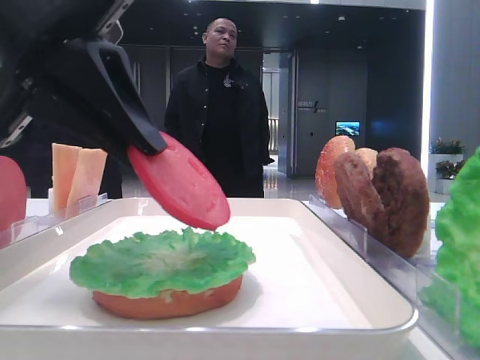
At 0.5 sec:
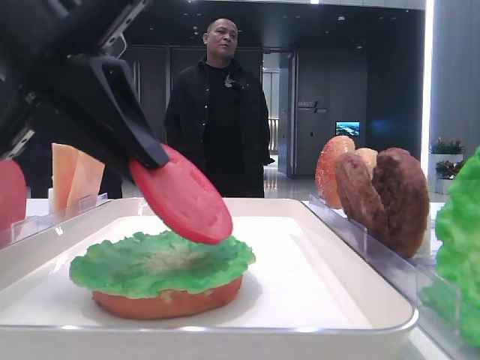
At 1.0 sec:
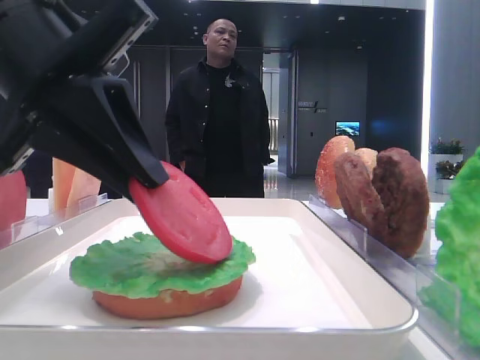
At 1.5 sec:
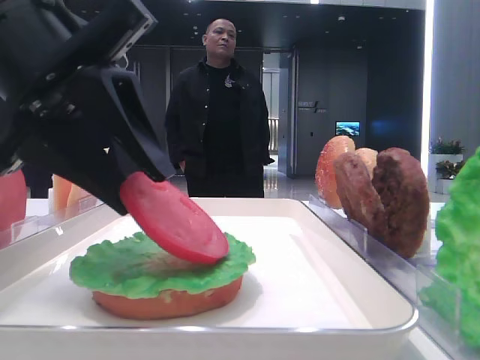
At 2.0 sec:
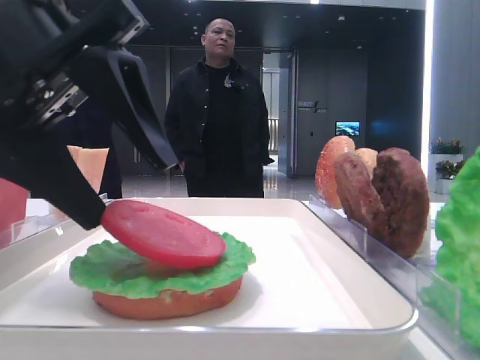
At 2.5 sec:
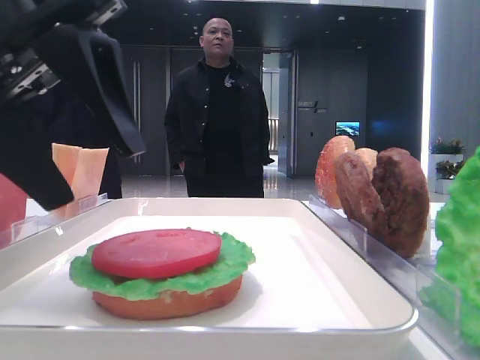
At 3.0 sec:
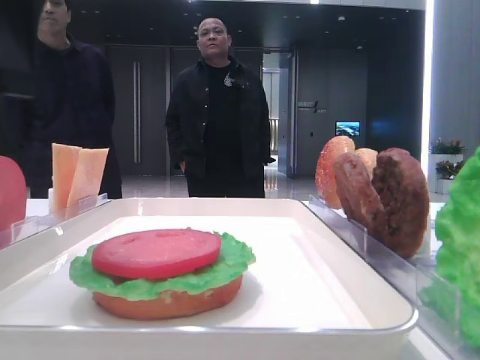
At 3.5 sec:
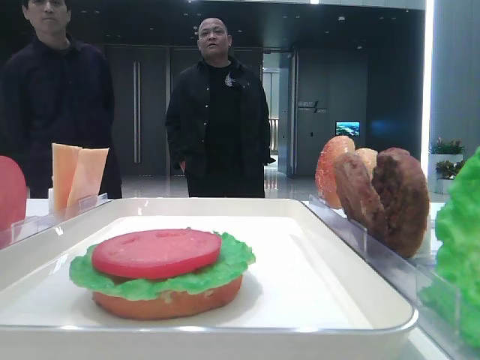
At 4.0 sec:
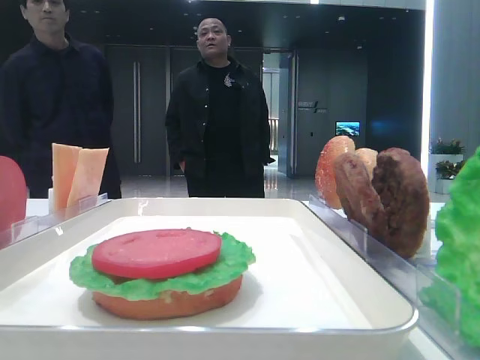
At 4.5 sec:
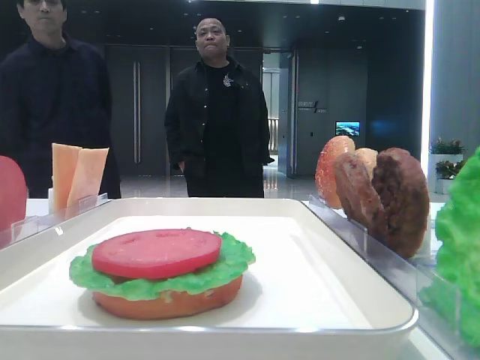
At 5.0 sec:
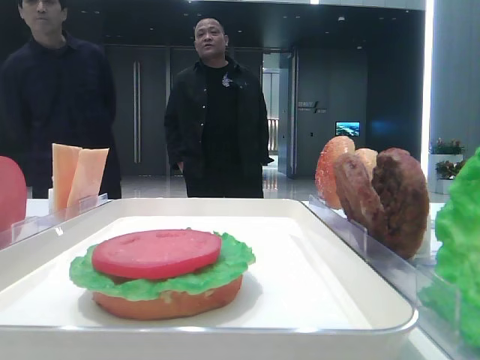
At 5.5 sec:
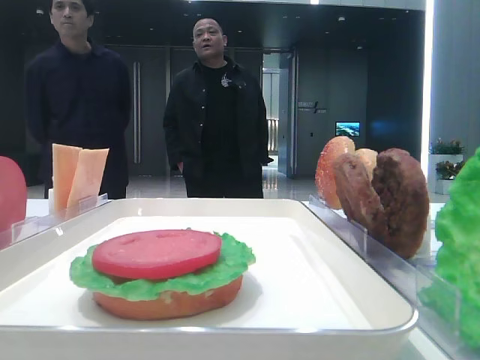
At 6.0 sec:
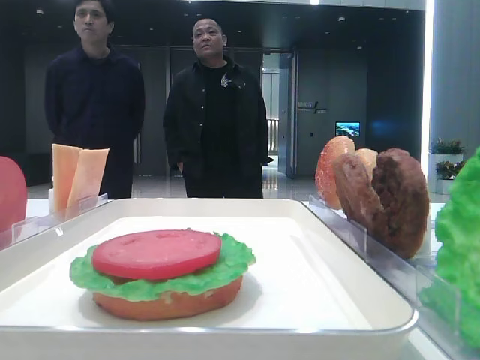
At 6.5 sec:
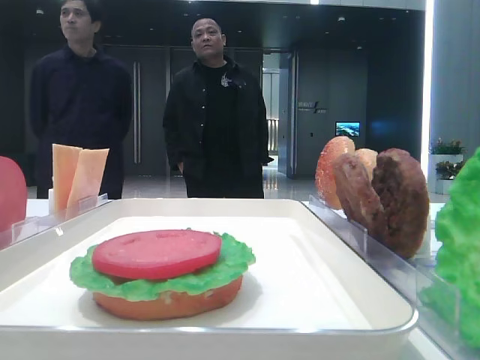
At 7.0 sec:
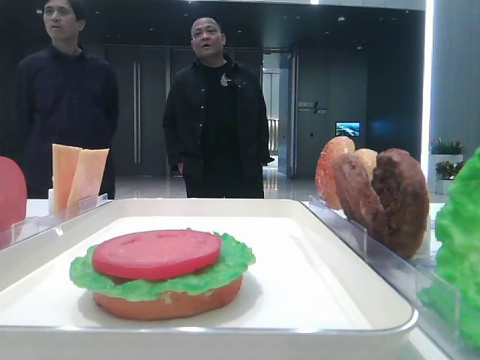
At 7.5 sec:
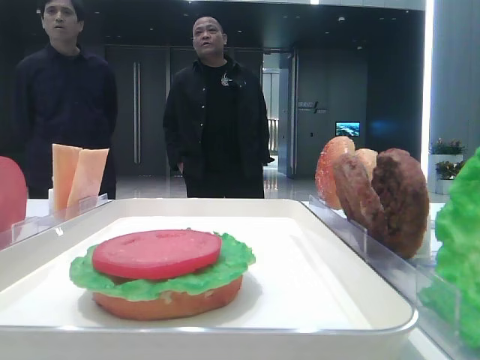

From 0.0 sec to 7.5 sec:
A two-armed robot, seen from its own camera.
Step, from 0.0 sec to 2.0 sec: Place the tomato slice on the lettuce leaf with the left hand.
From 0.0 sec to 2.0 sec: The left gripper opens its fingers.
From 2.0 sec to 4.0 sec: The left gripper heads upward and to the left, covering about 15 cm.
From 4.0 sec to 5.5 sec: The left gripper goes approximately 20 cm backward.
From 5.5 sec to 7.5 sec: The left gripper shifts about 5 cm downward.

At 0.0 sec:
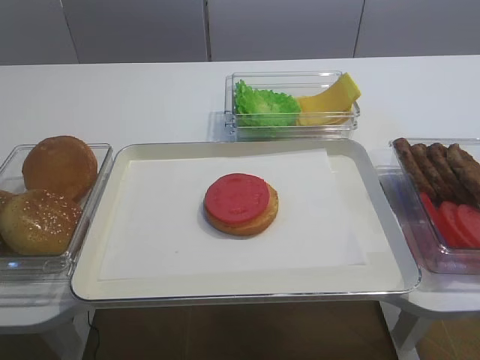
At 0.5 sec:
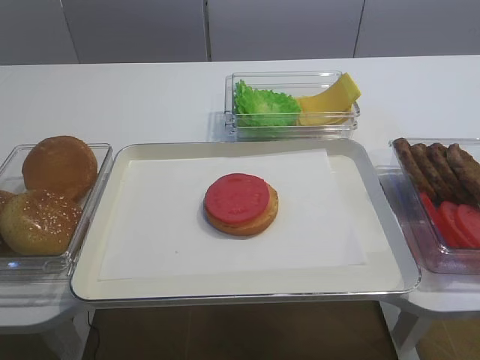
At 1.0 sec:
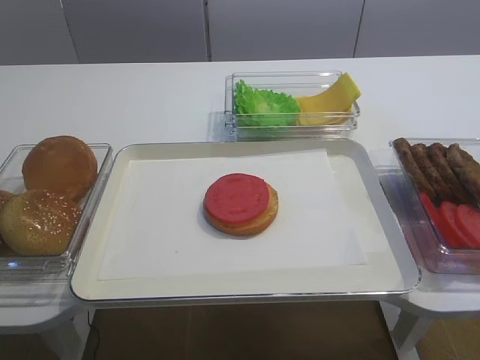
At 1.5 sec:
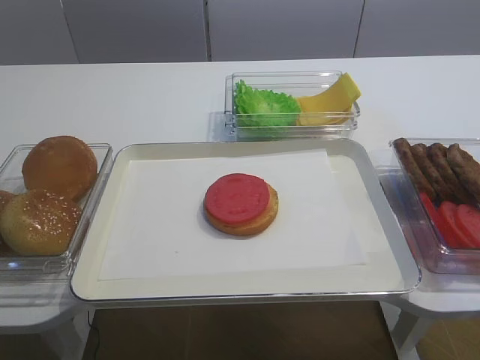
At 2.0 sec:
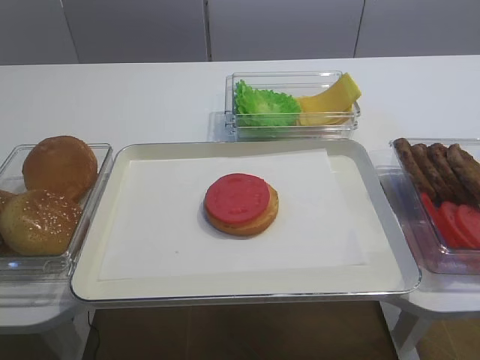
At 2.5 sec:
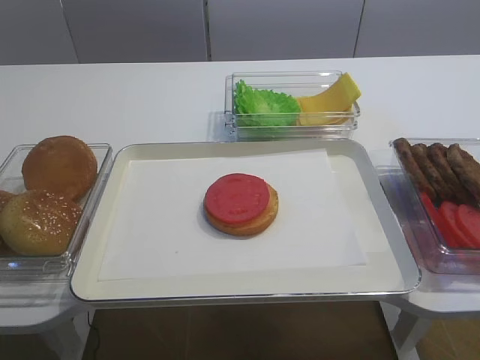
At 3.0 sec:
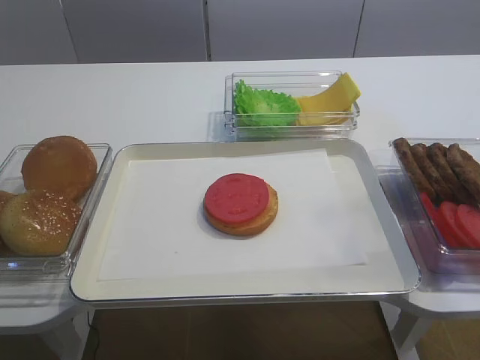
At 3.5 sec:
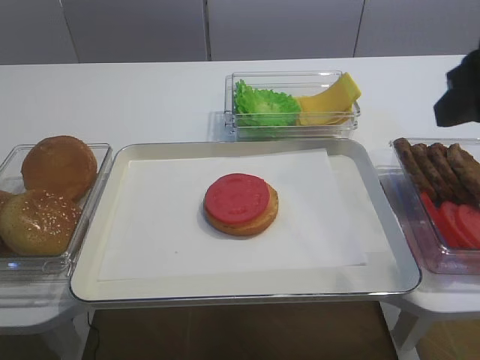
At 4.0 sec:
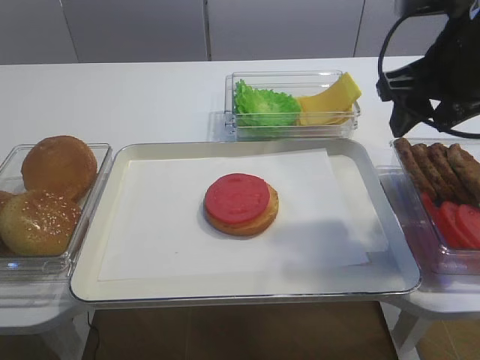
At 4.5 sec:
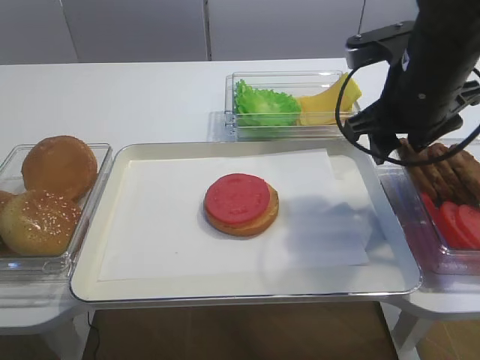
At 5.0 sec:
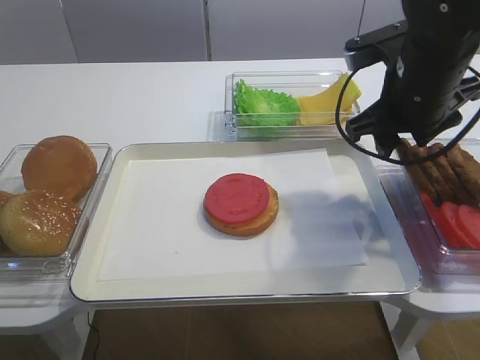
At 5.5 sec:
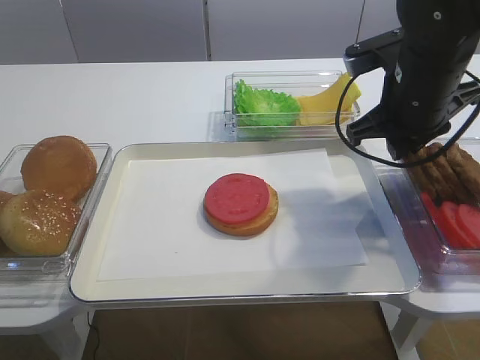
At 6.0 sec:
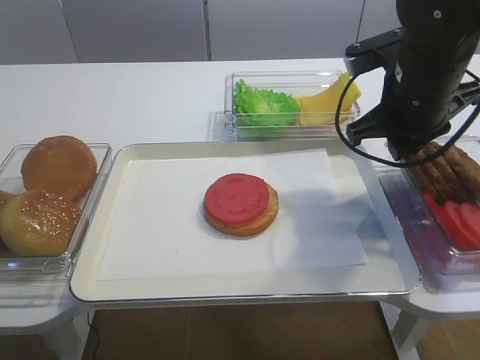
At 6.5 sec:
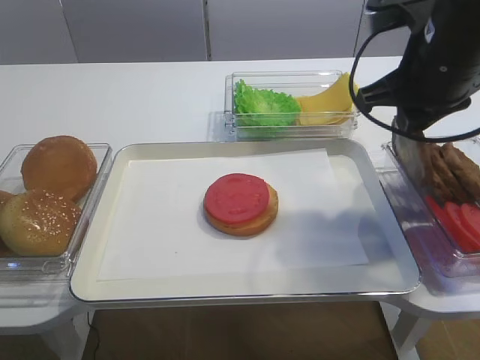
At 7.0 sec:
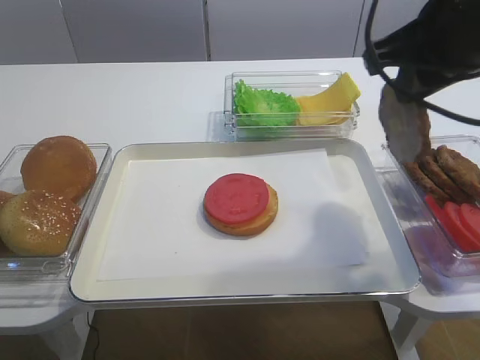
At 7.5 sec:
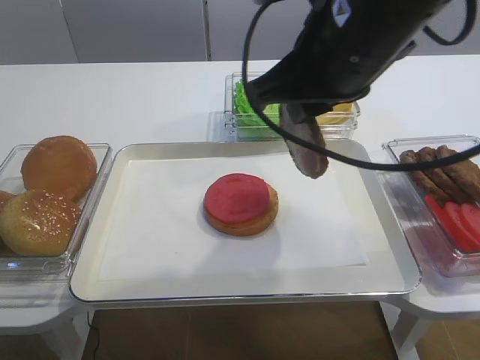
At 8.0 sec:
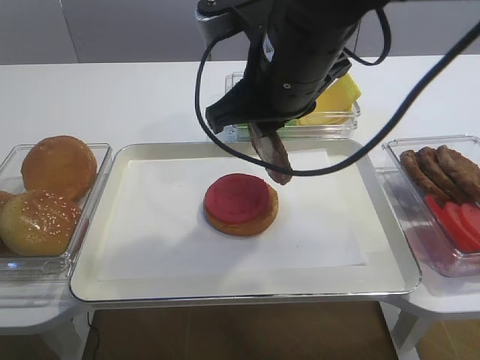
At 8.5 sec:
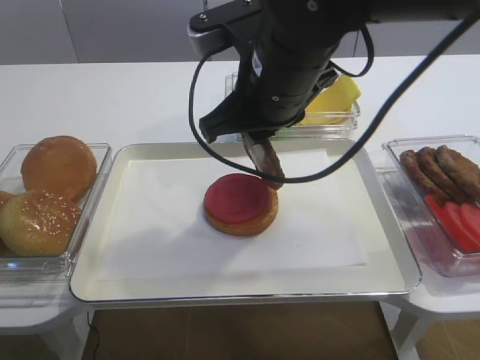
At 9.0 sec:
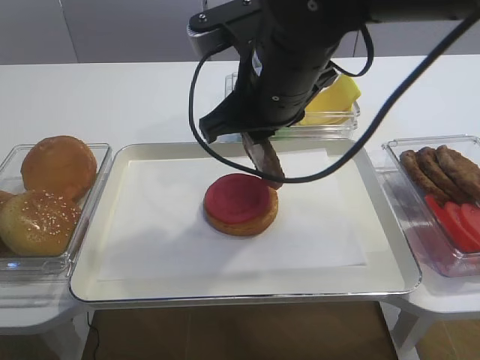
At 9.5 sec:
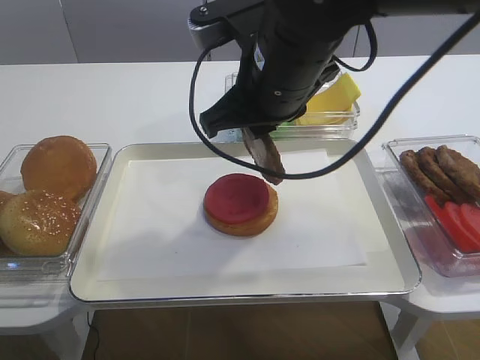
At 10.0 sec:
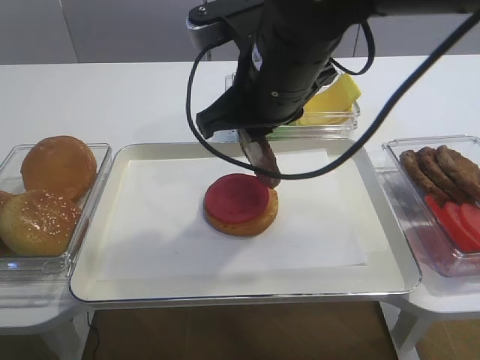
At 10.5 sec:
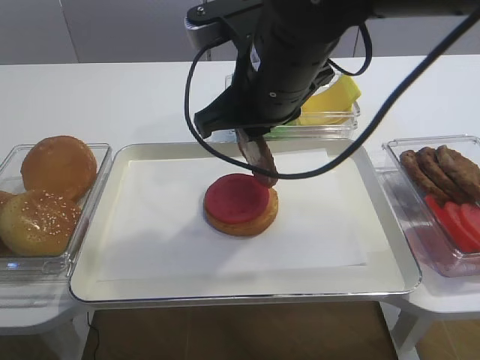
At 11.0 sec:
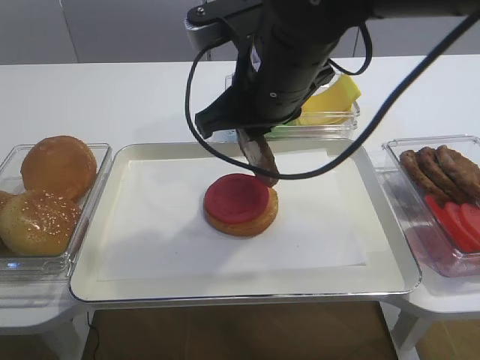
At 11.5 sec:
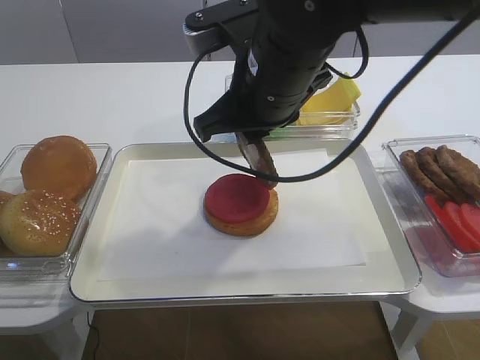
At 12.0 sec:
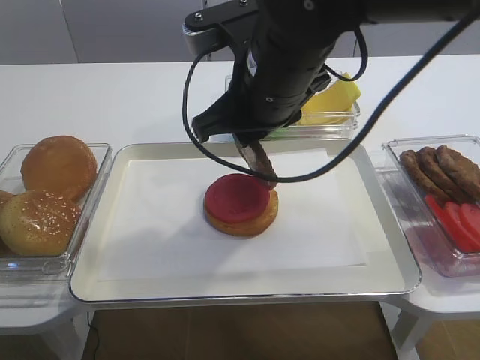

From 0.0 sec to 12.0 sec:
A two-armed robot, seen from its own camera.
Step, from 0.0 sec to 6.5 sec: Pick up the cutlet with the right gripper.
From 2.0 sec to 4.0 sec: The right gripper moves forward, roughly 30 cm.
From 4.0 sec to 6.0 sec: The right gripper travels downward by about 5 cm, and closes its fingers.
From 6.0 sec to 8.0 sec: The right gripper shifts some 15 cm to the left, upward and backward.
From 8.0 sec to 10.0 sec: The grippers move only a little.
From 10.0 sec to 12.0 sec: Both grippers stay about where they are.

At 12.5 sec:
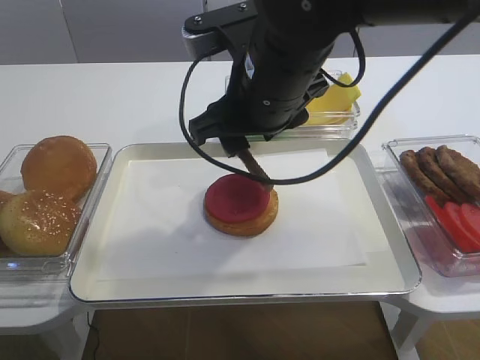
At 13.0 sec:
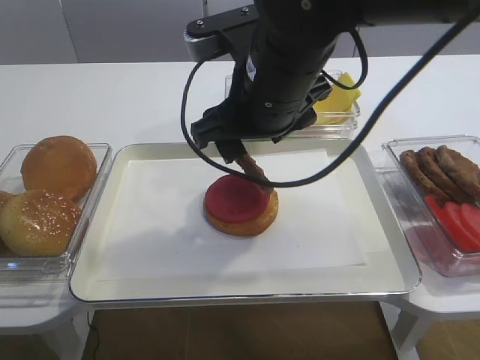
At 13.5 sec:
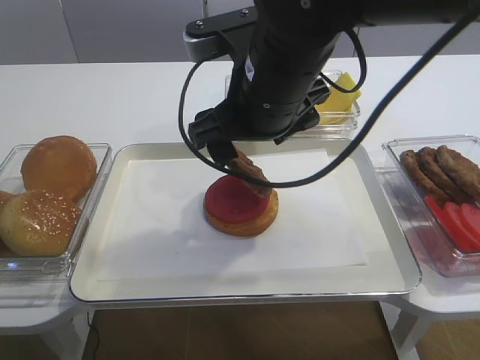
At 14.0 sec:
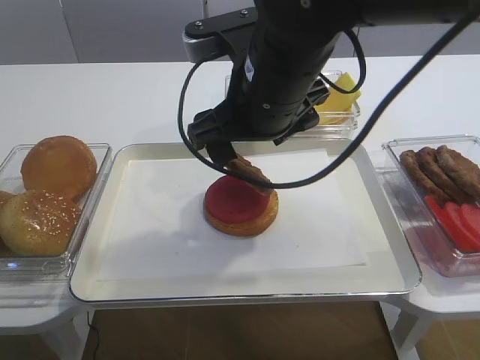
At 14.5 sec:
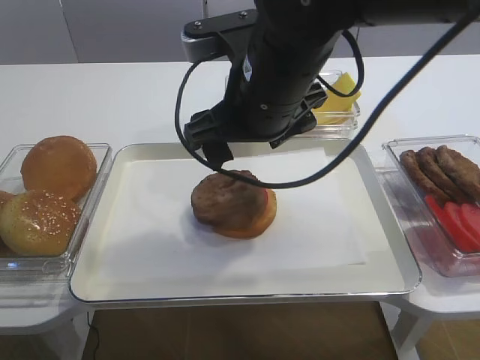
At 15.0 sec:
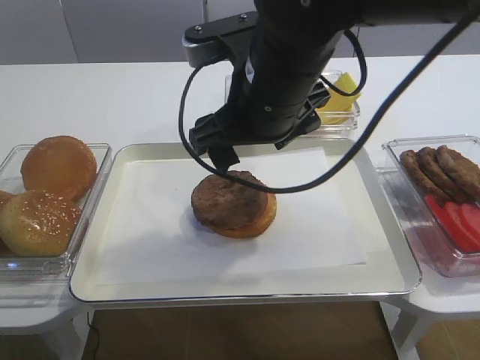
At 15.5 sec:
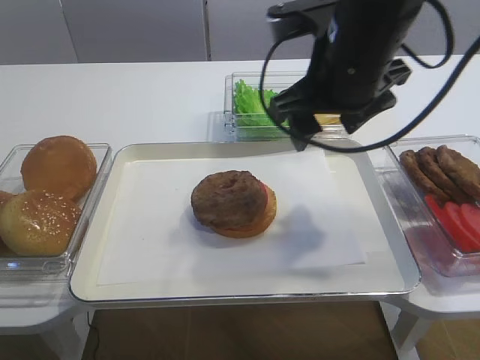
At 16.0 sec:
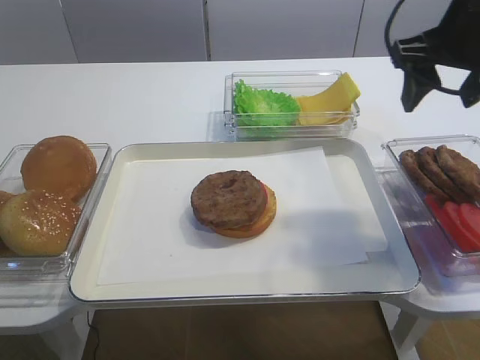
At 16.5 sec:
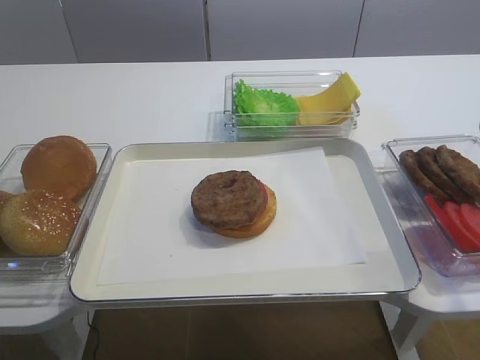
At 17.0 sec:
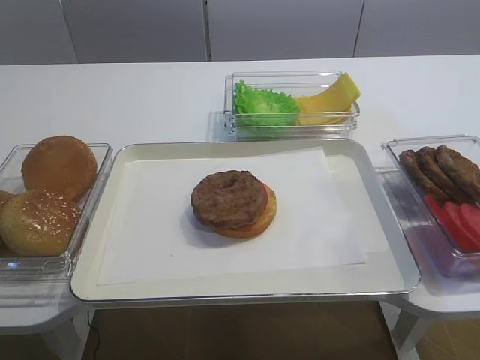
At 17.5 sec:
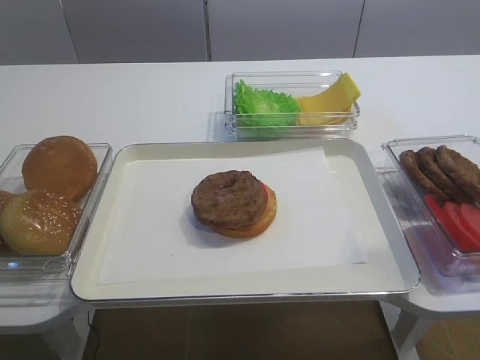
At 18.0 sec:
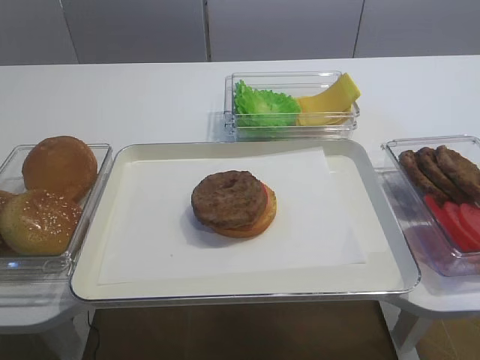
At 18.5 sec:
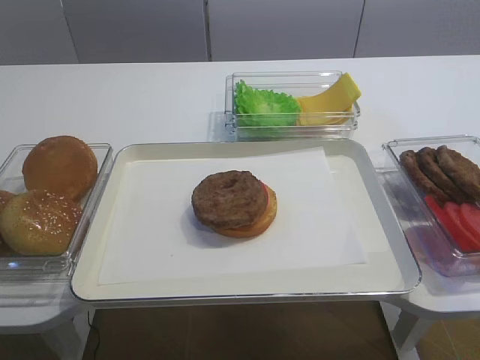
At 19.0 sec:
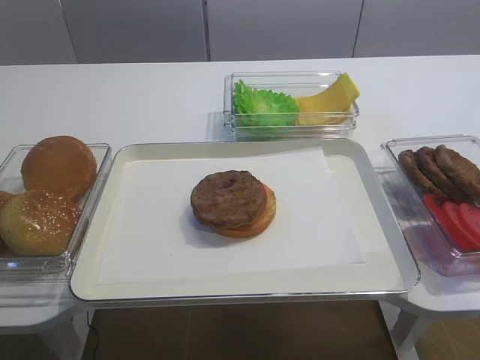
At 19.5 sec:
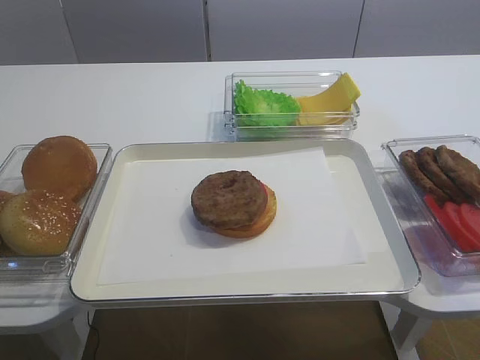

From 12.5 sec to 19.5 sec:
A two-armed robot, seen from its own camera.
Step, from 12.5 sec to 15.0 sec: Place the cutlet on the tomato slice with the right gripper.
From 12.5 sec to 14.5 sec: The right gripper opens.
From 14.5 sec to 16.0 sec: The right gripper shifts about 20 cm to the right.
From 16.0 sec to 17.5 sec: The right gripper heads backward, covering about 30 cm.
